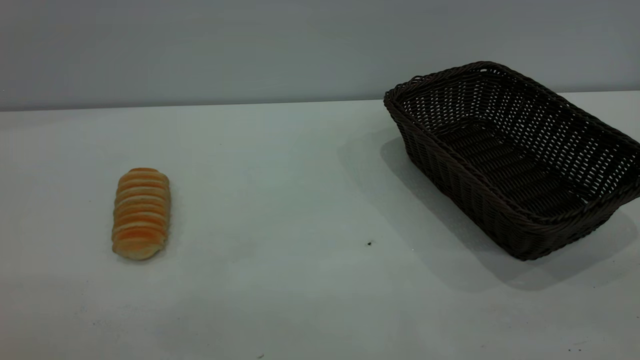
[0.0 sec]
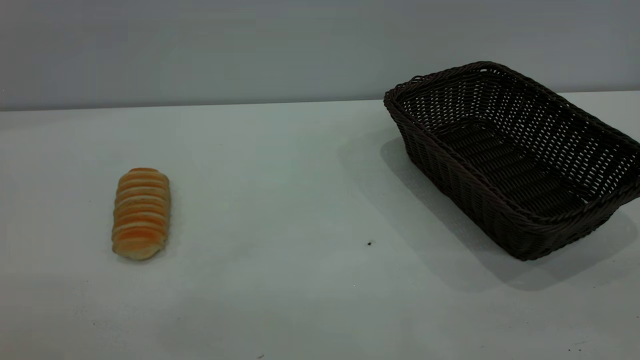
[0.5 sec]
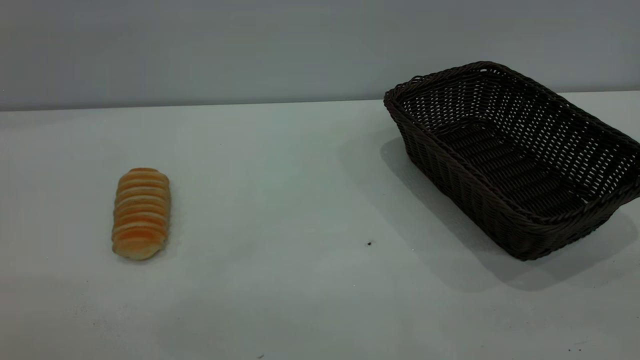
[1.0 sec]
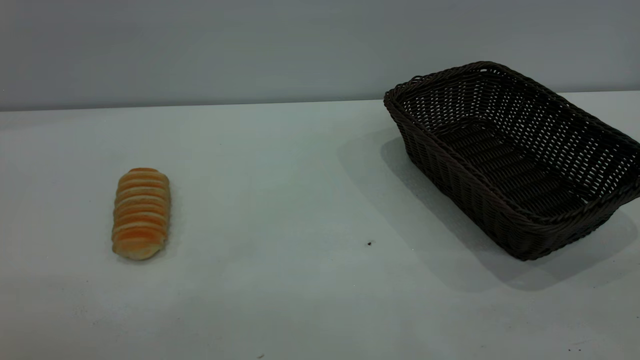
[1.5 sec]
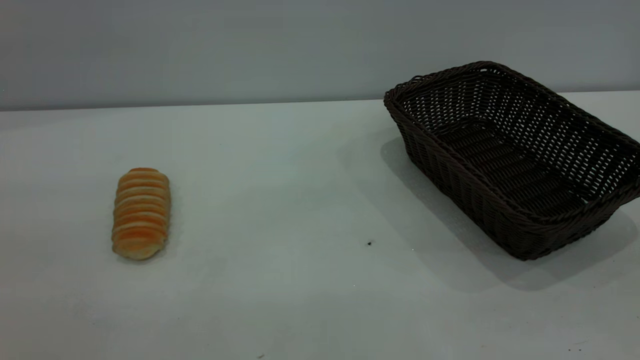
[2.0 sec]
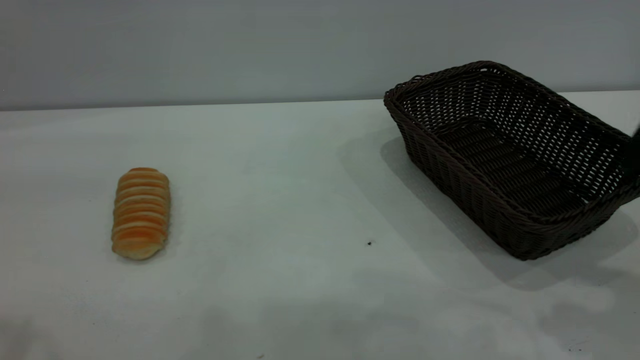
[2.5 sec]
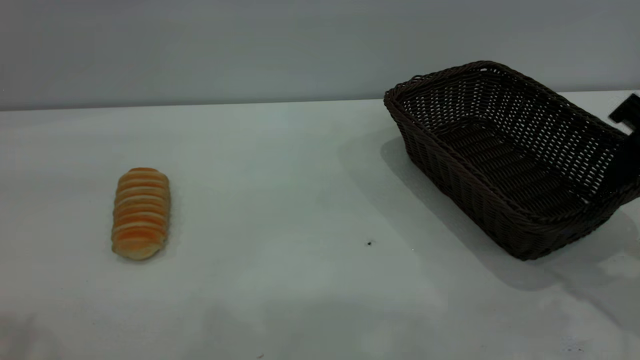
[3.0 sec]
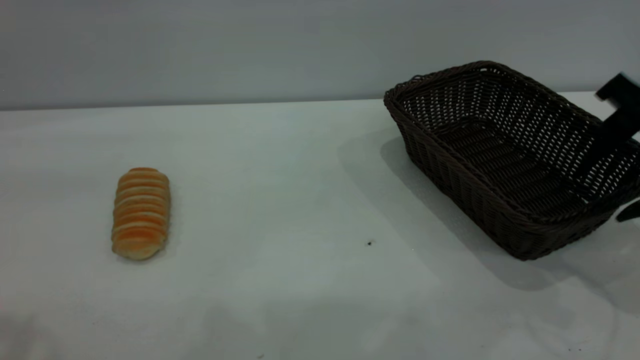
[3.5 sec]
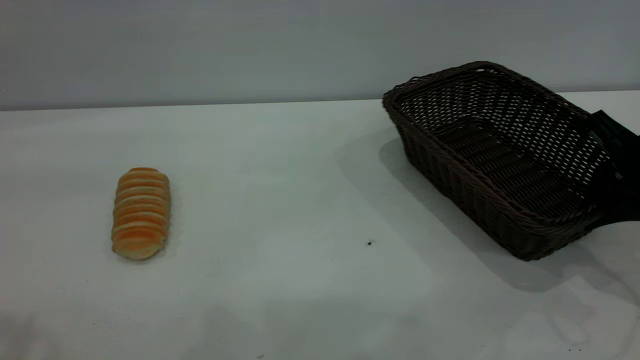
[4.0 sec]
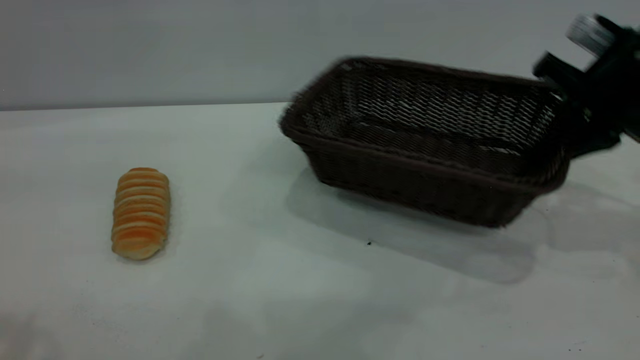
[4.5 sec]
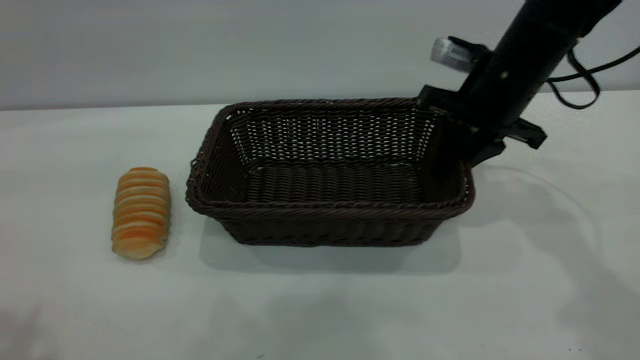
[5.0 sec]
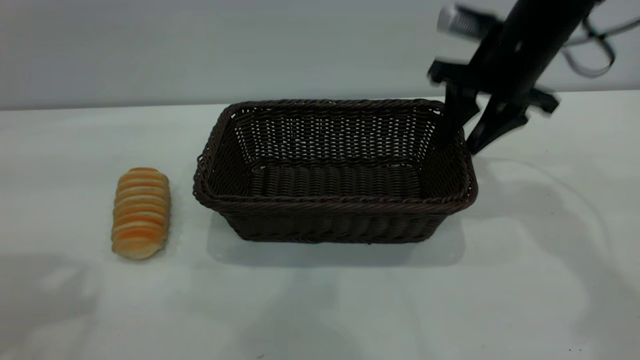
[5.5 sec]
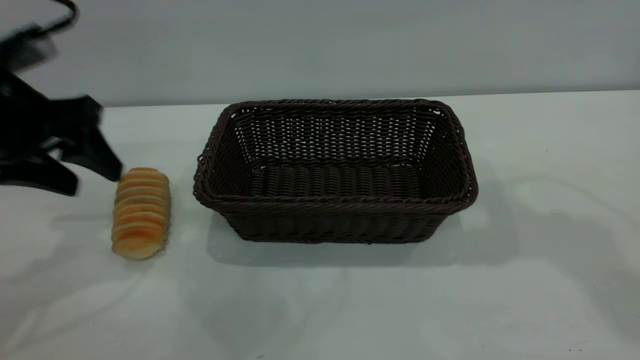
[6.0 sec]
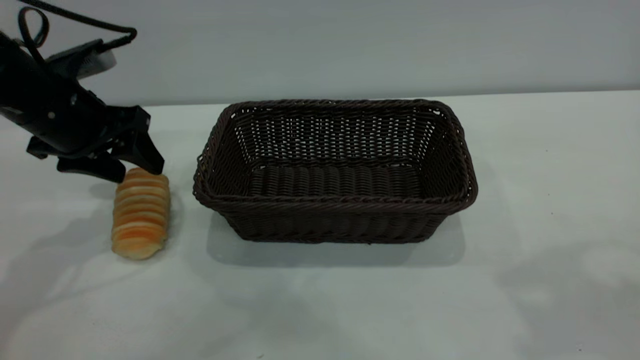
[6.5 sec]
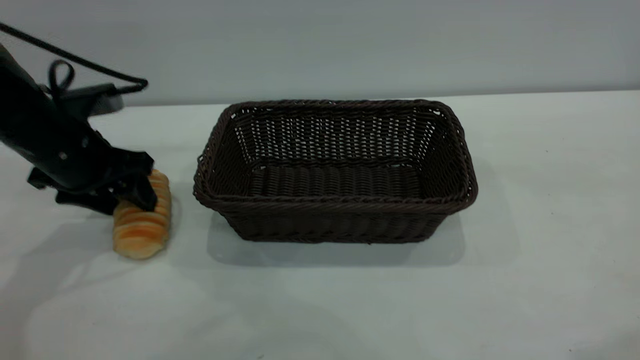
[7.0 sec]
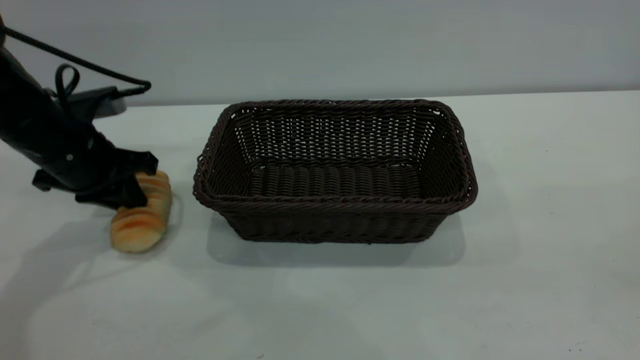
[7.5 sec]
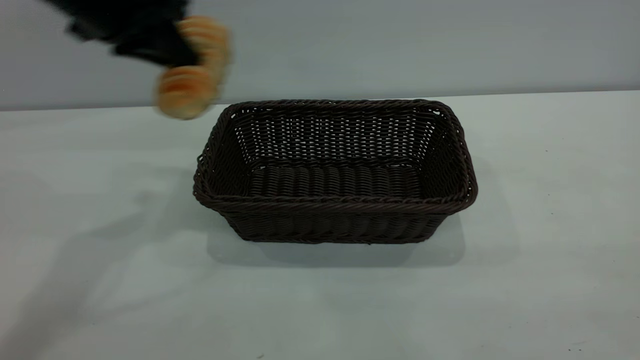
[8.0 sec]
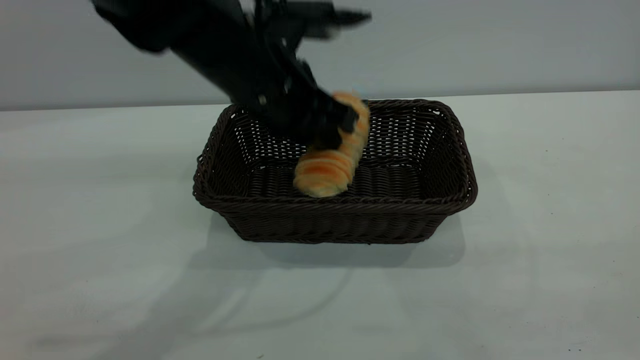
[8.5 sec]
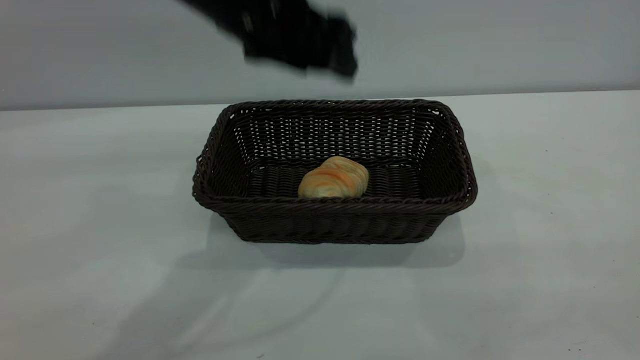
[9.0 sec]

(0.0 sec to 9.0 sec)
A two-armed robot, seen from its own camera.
Task of the whole recording: One hand grasps the black basket and places it in the middle of the table, while the other hand picks up the long bread and puts it into the black basket.
Step, 0.0 sec - 5.5 sec: Move the basket to the center of view.
Step, 8.0 sec - 8.5 sec: place the bread into the basket.
2.0 sec - 4.5 sec: The left gripper moves forward, roughly 10 cm. Meanwhile the right gripper is displaced forward and downward by roughly 35 cm, and closes.
4.5 sec - 7.0 sec: The left gripper goes about 35 cm downward and forward. Meanwhile the right gripper heads upward and backward, covering some 35 cm, and opens.
7.0 sec - 9.0 sec: The left gripper shifts about 25 cm to the right and upward, and closes, then reopens. Meanwhile the right gripper travels backward and downward by about 20 cm.

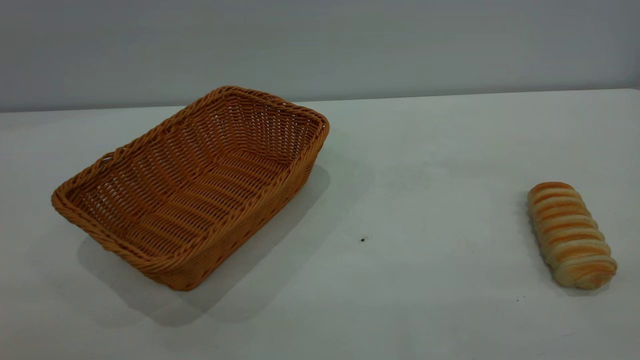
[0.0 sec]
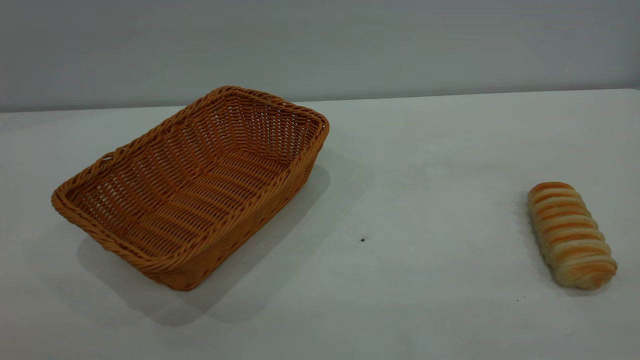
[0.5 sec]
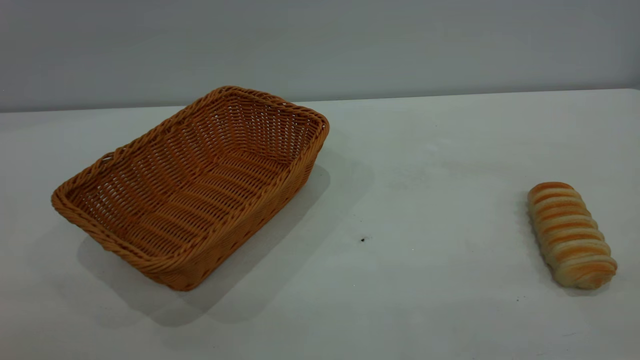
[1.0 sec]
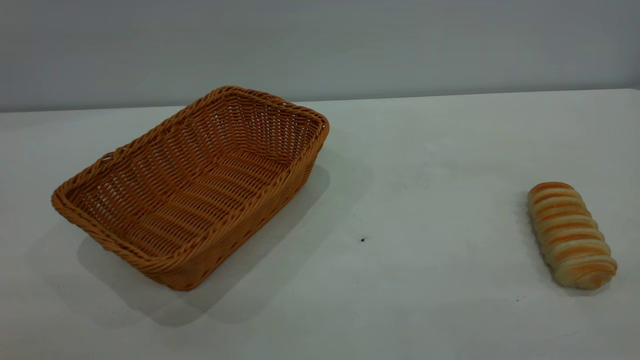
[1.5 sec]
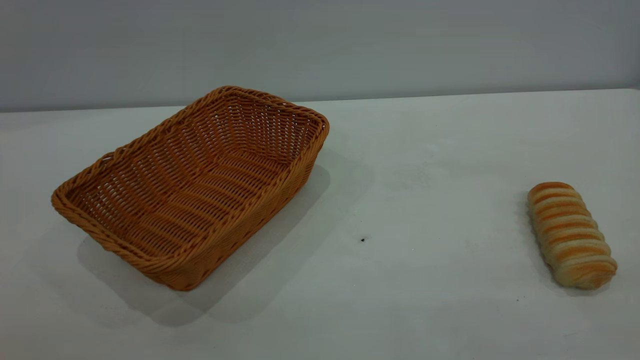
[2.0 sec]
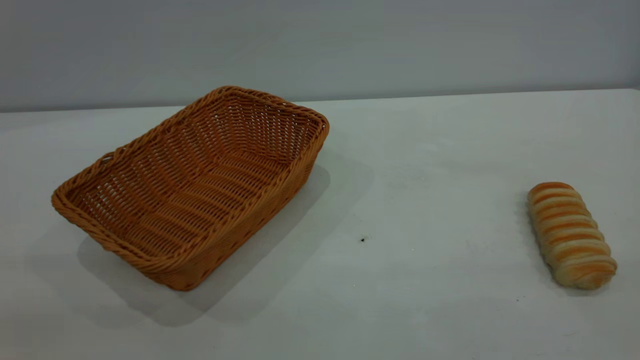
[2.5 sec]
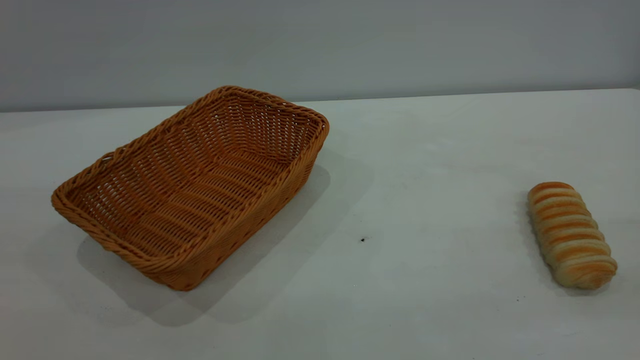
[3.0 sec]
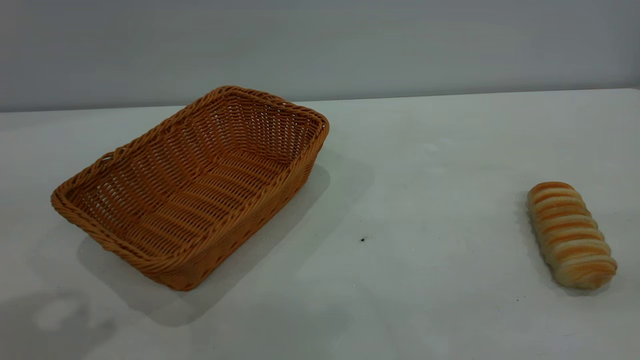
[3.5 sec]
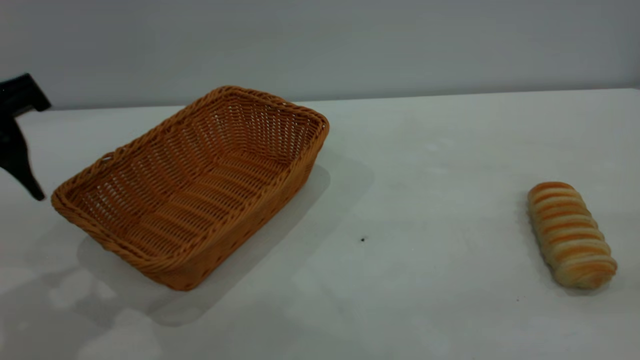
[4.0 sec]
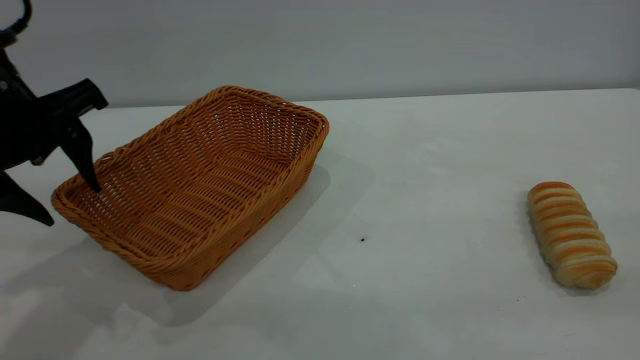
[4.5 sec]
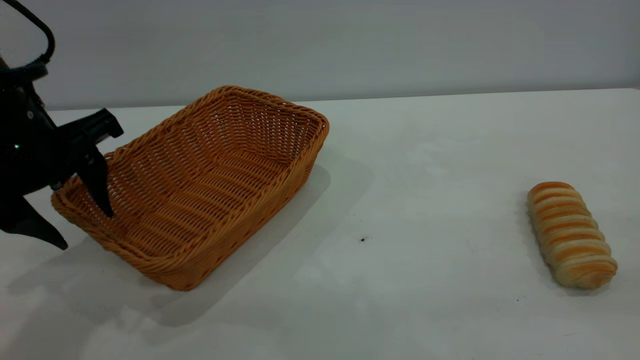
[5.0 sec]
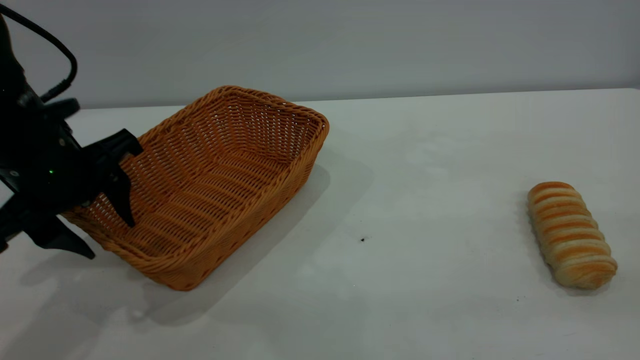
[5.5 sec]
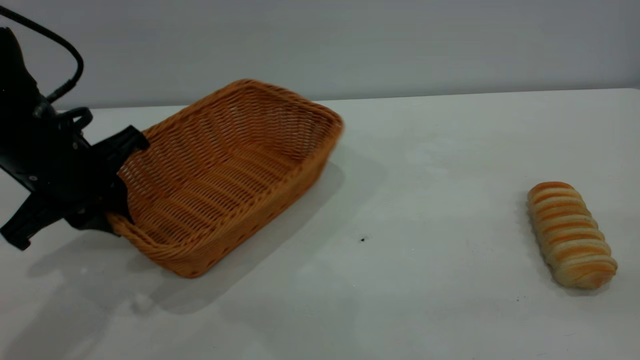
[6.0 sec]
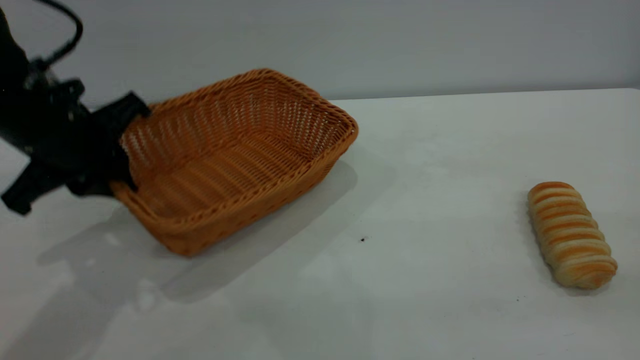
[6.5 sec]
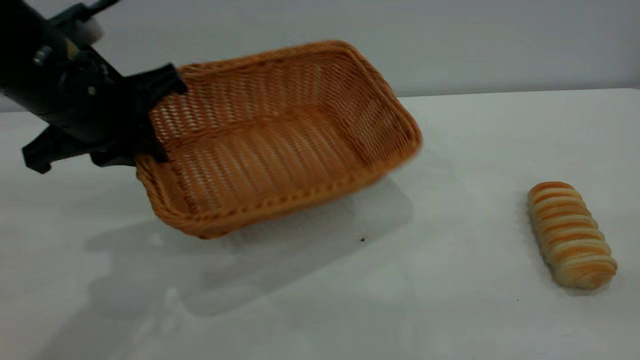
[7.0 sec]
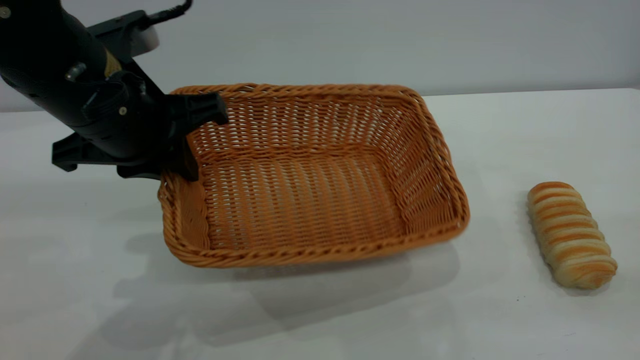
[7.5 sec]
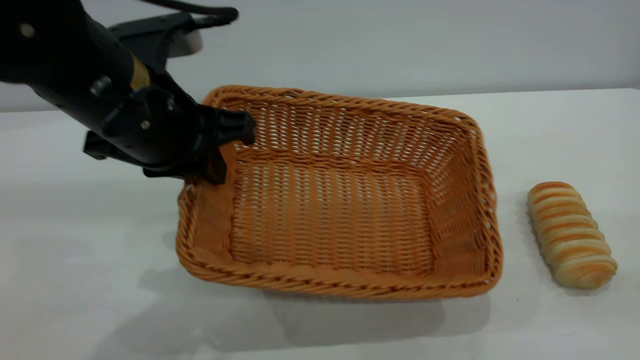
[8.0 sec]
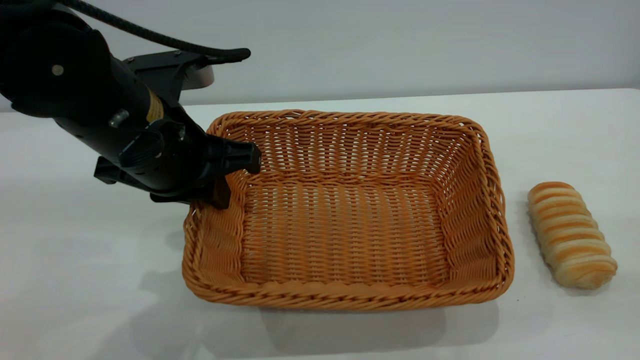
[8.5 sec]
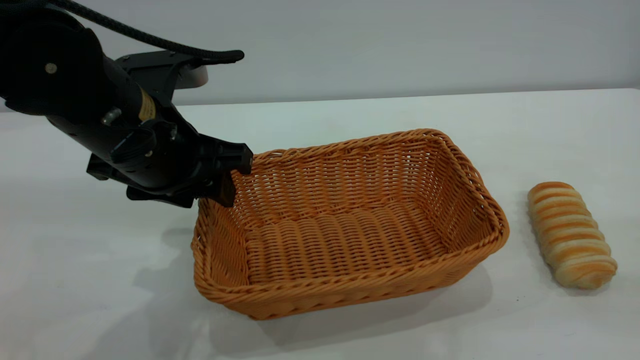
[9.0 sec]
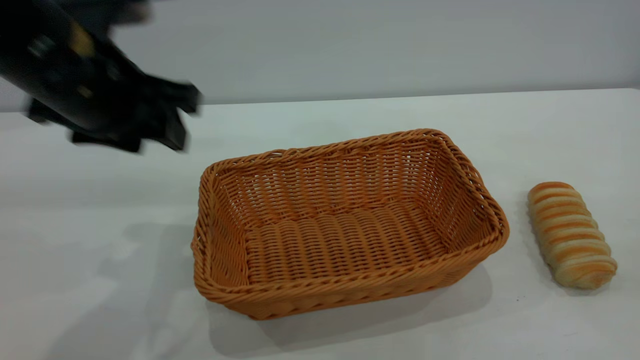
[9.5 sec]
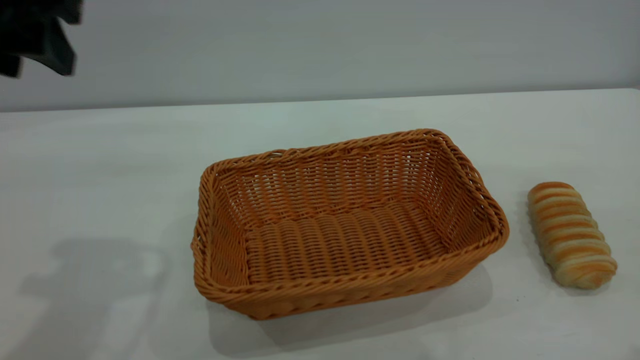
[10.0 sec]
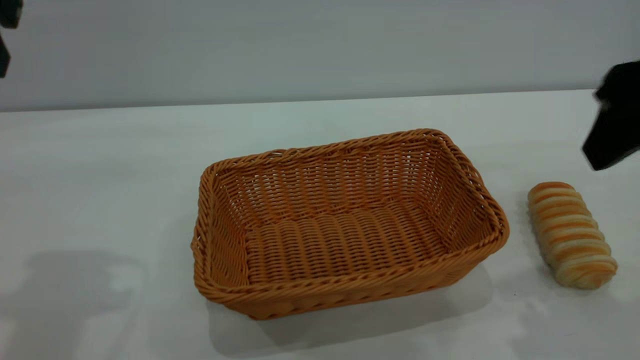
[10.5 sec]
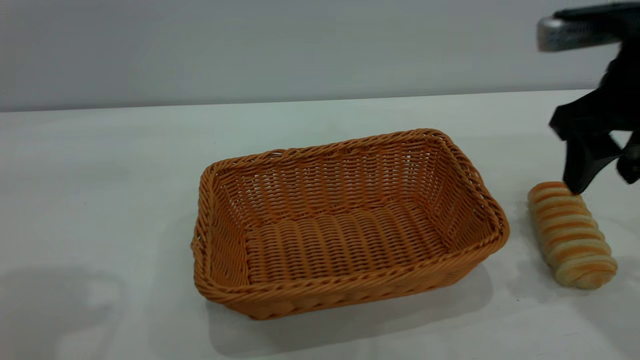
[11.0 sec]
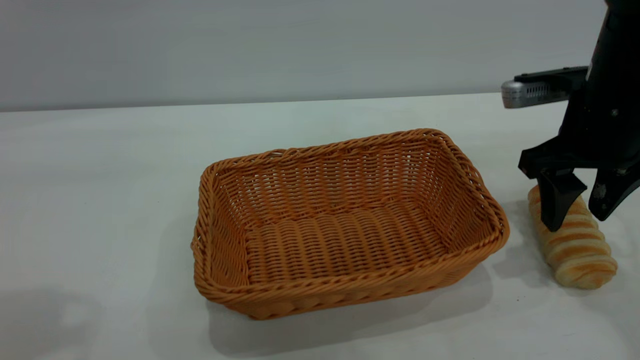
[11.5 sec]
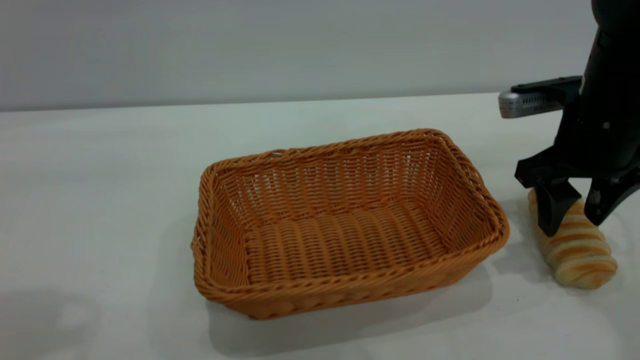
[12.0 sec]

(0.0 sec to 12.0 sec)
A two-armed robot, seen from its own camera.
Task of the whole recording: One hand grasps the yellow basket and places it in the middle of the table, while the other hand picks up the long bread and puts it into the yellow basket.
Step, 0.0 sec - 9.0 sec: Move the basket to the center of view.
2.0 sec - 4.0 sec: The left gripper travels forward by approximately 25 cm.
4.0 sec - 6.0 sec: The left gripper heads downward and forward, covering approximately 10 cm, and closes its fingers.
6.0 sec - 8.0 sec: The left gripper moves to the right, approximately 10 cm.
8.0 sec - 10.0 sec: The left gripper travels upward and to the left by roughly 15 cm, and opens. Meanwhile the right gripper shifts roughly 10 cm forward.
10.0 sec - 12.0 sec: The left gripper goes about 10 cm backward and upward, while the right gripper heads forward and downward, covering some 25 cm.
